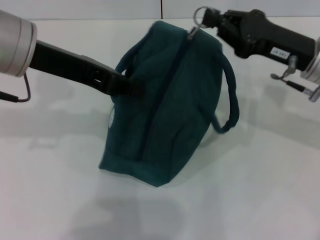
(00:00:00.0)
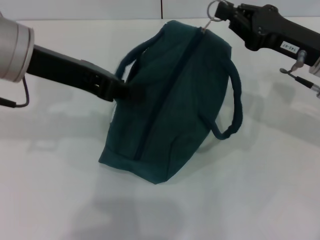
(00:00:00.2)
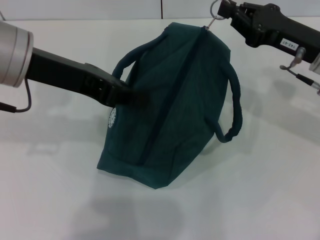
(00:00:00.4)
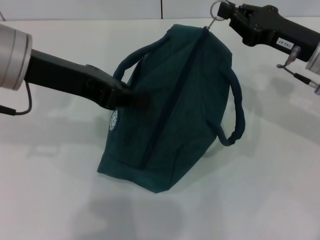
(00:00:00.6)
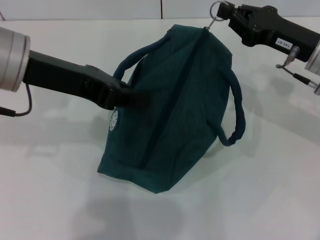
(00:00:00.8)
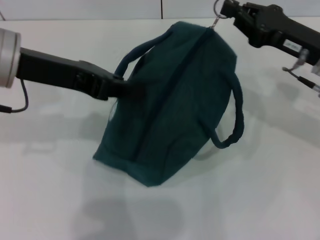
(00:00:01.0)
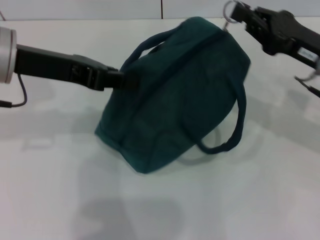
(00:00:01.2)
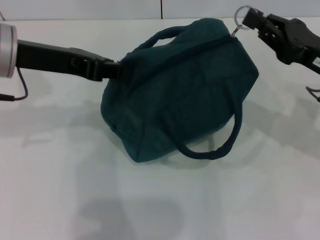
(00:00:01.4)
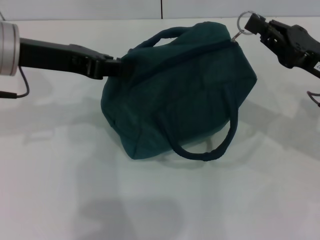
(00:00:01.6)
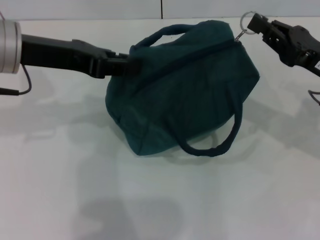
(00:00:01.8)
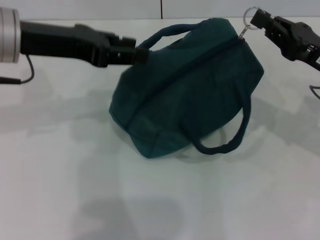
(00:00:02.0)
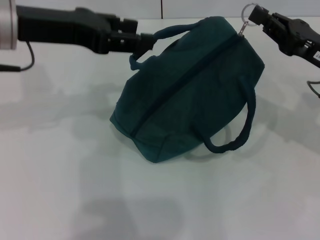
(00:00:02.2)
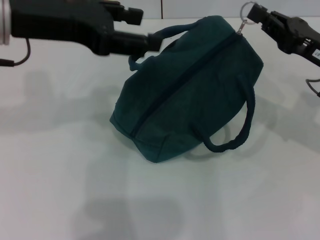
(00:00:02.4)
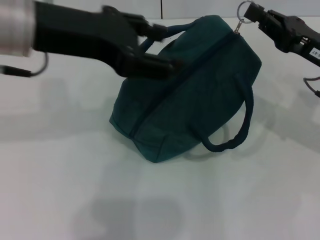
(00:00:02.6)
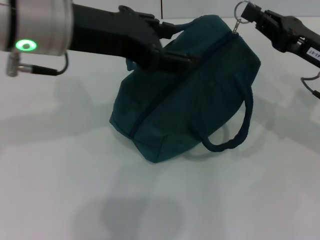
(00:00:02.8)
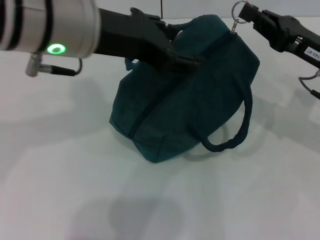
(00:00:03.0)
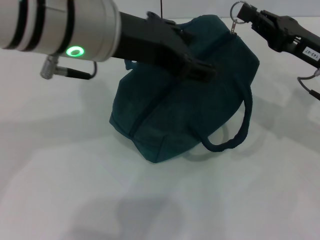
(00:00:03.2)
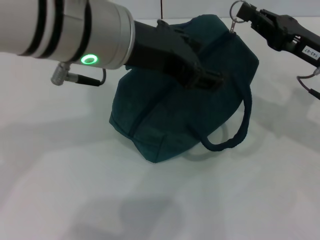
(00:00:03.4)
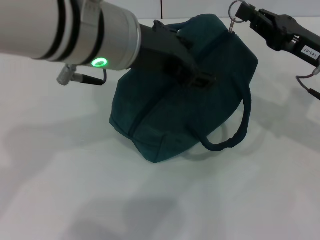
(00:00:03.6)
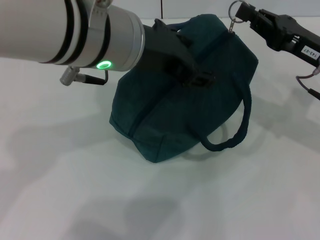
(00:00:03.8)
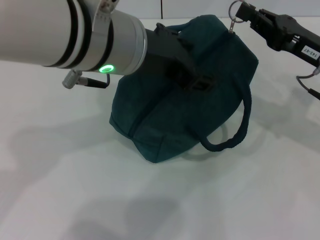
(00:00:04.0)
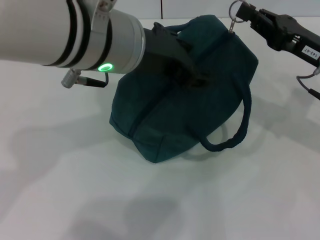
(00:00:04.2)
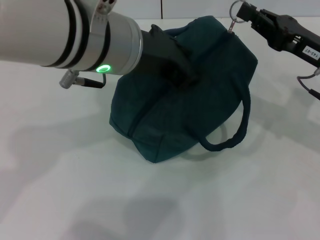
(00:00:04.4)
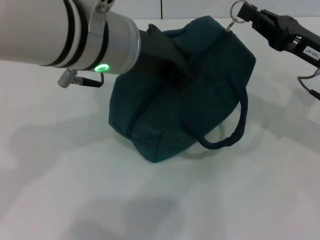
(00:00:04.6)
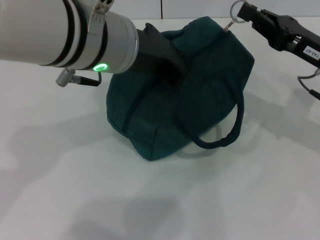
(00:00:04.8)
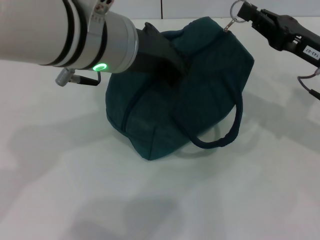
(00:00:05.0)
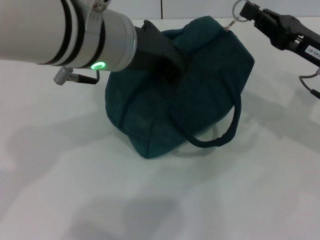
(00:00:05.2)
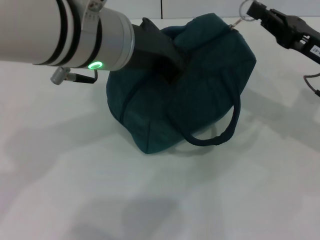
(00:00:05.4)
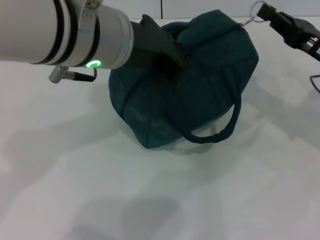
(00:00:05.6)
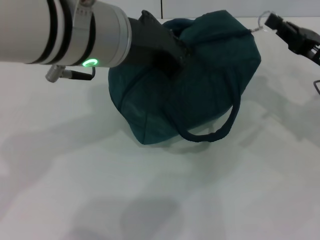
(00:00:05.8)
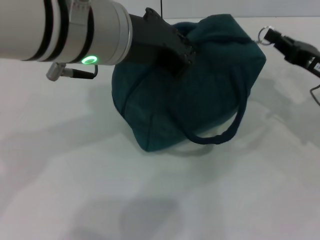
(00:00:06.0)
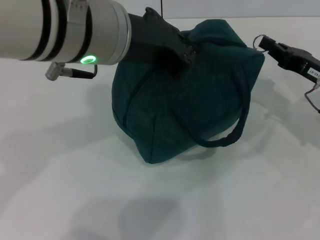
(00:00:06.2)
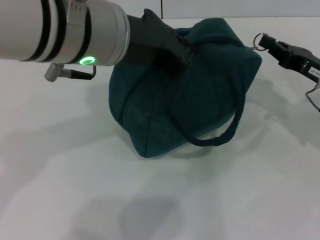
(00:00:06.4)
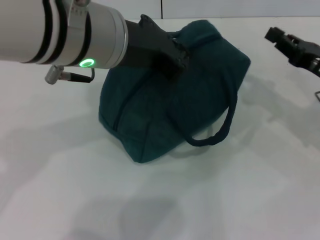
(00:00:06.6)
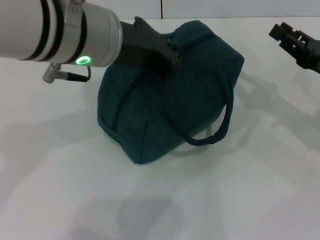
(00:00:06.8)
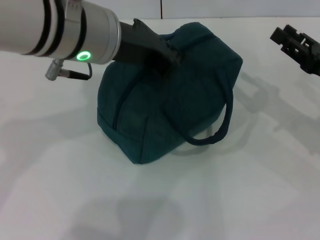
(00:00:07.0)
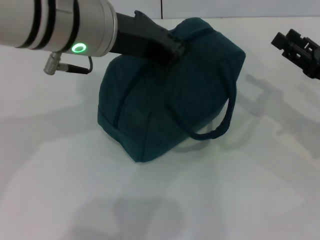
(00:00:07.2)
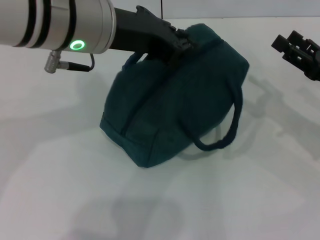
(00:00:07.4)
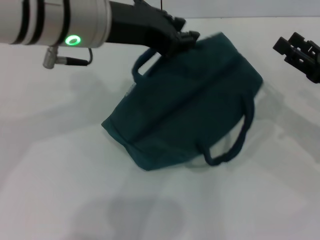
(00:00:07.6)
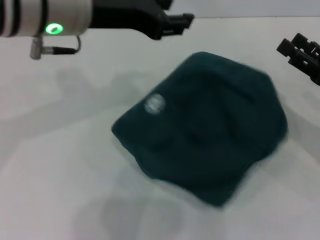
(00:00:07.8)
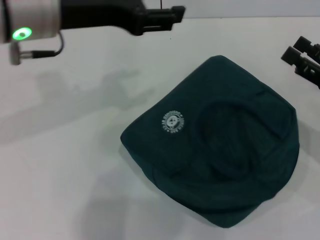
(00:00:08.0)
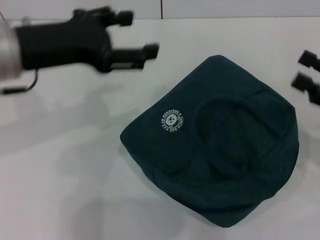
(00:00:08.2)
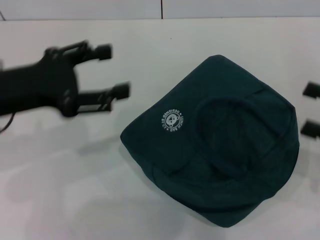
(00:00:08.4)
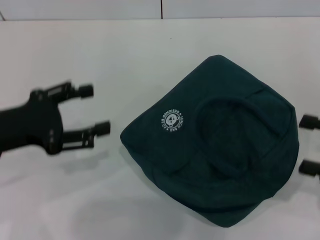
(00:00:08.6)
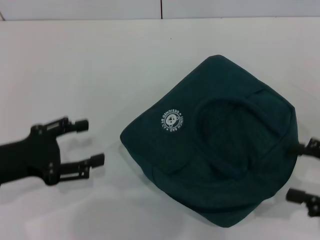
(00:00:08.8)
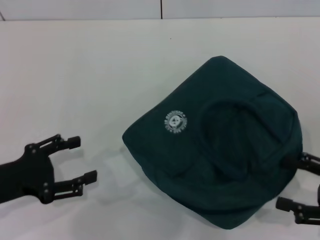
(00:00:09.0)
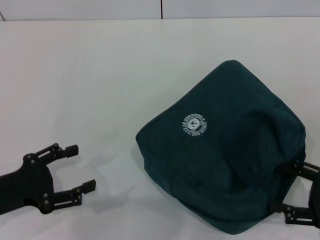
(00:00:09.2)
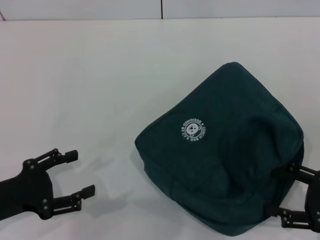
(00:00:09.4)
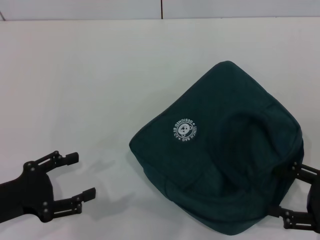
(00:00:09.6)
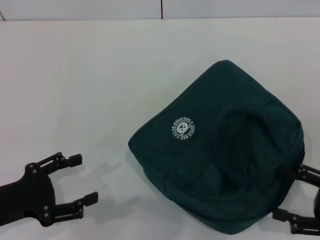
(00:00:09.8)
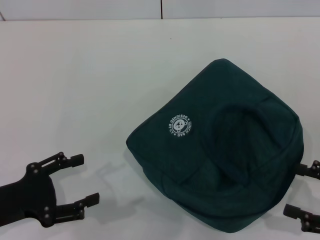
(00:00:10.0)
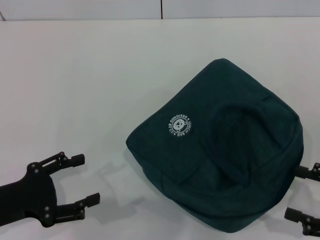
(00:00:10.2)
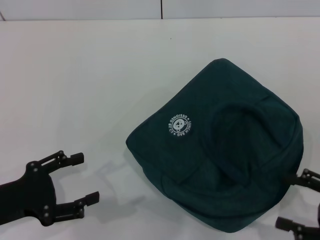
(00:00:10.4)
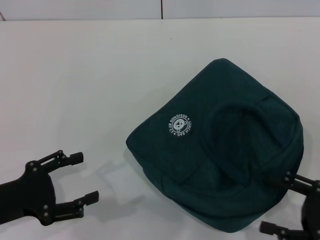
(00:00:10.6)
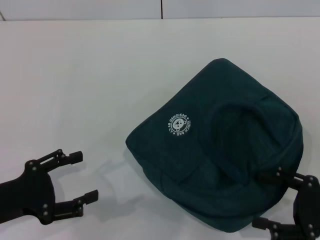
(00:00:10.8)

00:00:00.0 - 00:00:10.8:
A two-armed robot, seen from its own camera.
Step, 00:00:00.0 - 00:00:06.4: Zip up the lunch bag with your right hand.
Step, 00:00:06.6 - 00:00:07.4: Hold the lunch bag with your left hand.
00:00:00.0 - 00:00:01.6: The right gripper moves approximately 5 cm.
00:00:01.6 - 00:00:03.0: The left gripper travels to the right and upward by some 10 cm, and opens up.
00:00:03.0 - 00:00:04.6: There are only small adjustments of the grippers.
00:00:04.6 - 00:00:06.2: The right gripper moves roughly 5 cm. Meanwhile the left gripper closes.
00:00:06.2 - 00:00:07.8: The right gripper changes place by approximately 5 cm, and opens. Meanwhile the left gripper moves some 5 cm, and opens.
00:00:07.8 - 00:00:09.2: The left gripper shifts some 30 cm downward, to the left and backward, and opens its fingers; the right gripper travels backward by roughly 10 cm.
00:00:09.2 - 00:00:10.8: The grippers make only small movements.
